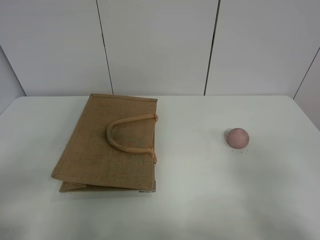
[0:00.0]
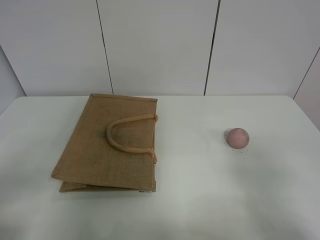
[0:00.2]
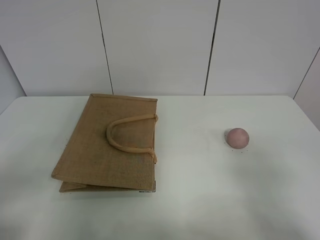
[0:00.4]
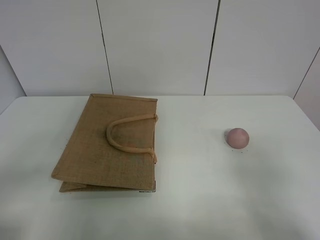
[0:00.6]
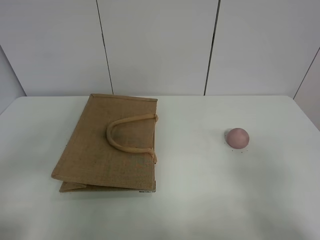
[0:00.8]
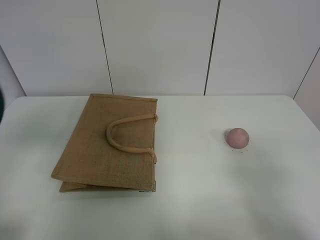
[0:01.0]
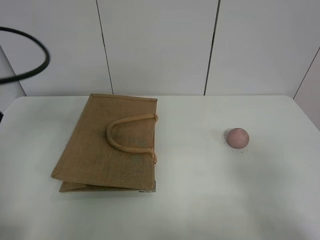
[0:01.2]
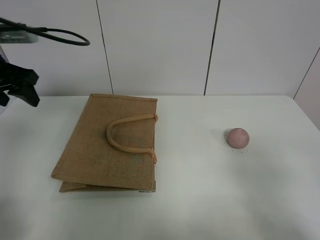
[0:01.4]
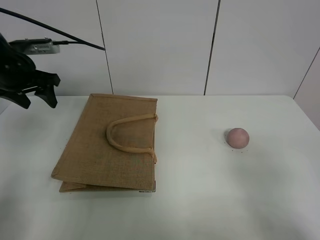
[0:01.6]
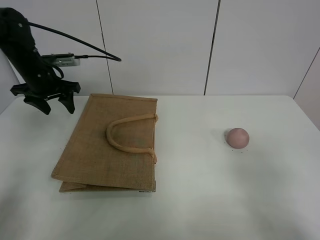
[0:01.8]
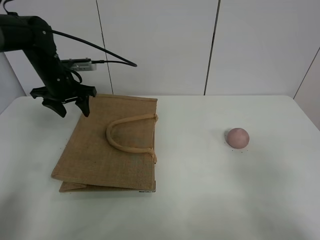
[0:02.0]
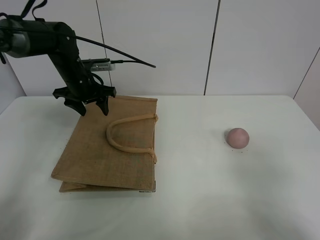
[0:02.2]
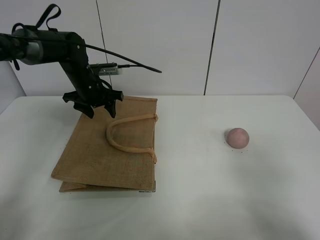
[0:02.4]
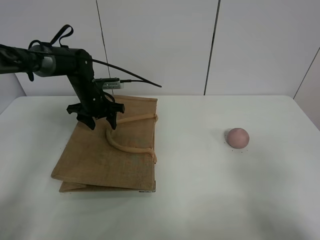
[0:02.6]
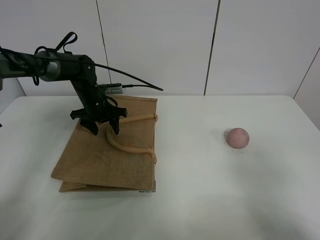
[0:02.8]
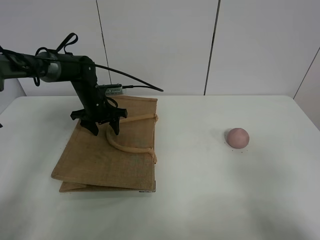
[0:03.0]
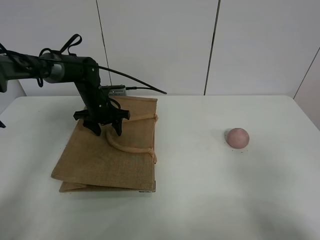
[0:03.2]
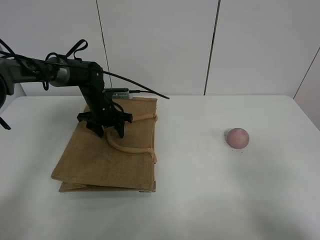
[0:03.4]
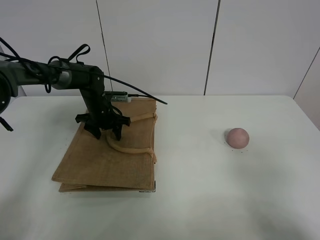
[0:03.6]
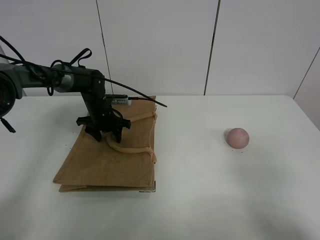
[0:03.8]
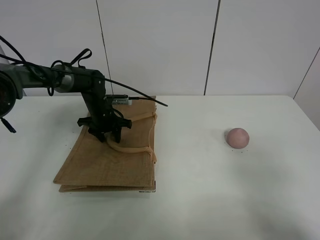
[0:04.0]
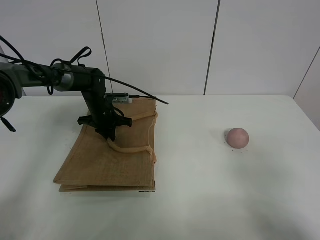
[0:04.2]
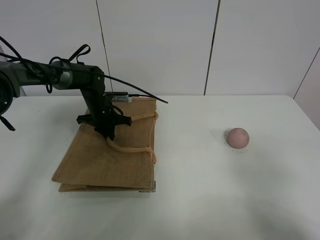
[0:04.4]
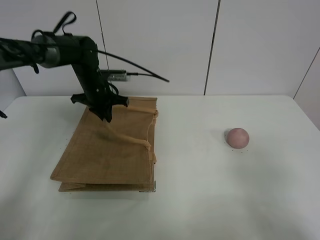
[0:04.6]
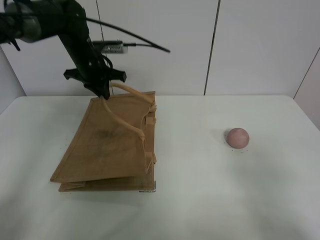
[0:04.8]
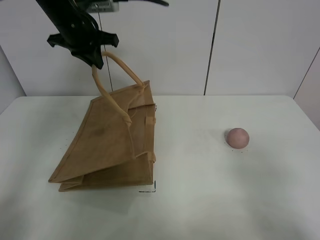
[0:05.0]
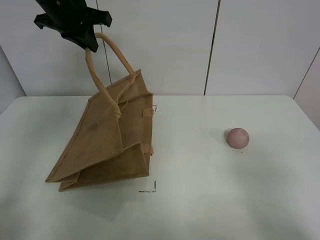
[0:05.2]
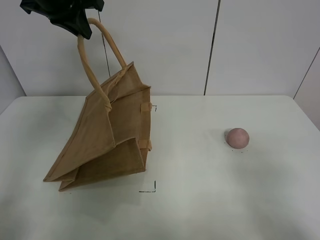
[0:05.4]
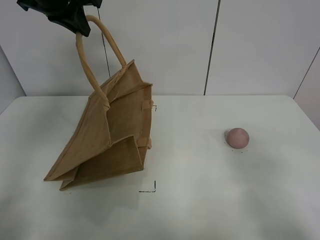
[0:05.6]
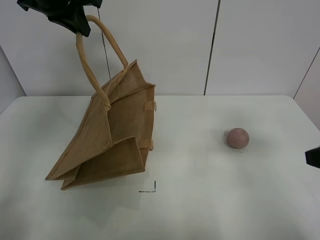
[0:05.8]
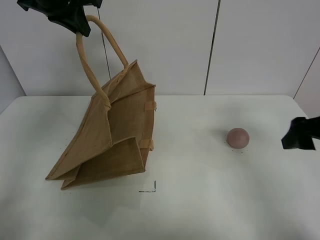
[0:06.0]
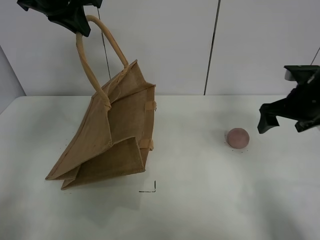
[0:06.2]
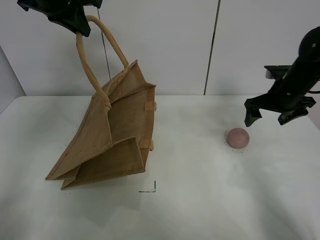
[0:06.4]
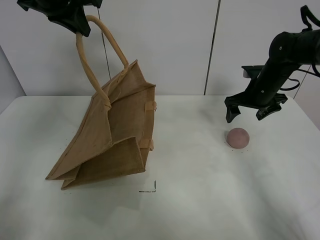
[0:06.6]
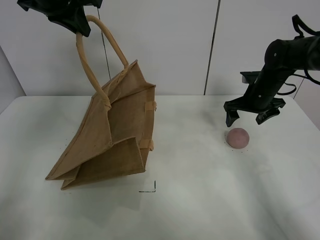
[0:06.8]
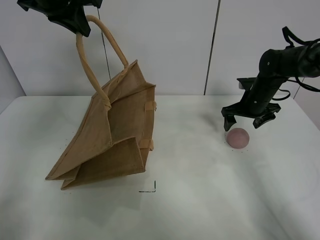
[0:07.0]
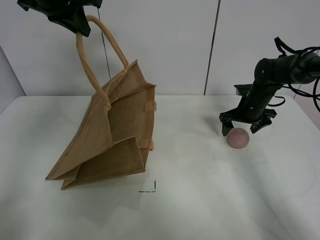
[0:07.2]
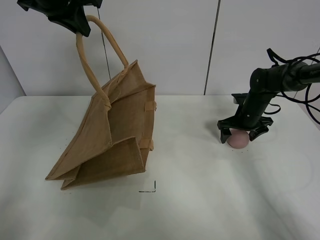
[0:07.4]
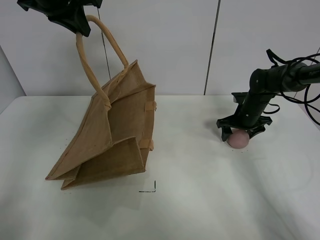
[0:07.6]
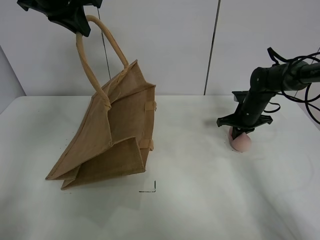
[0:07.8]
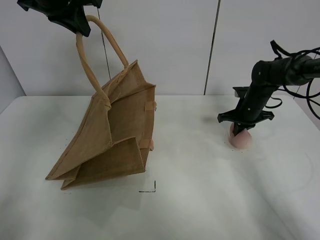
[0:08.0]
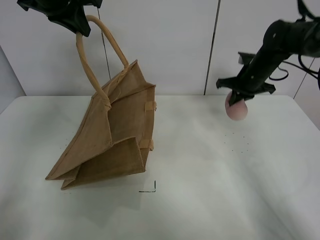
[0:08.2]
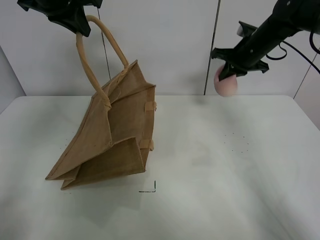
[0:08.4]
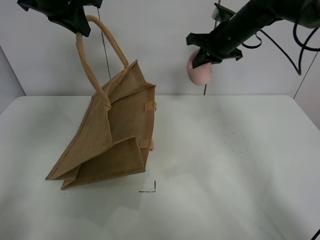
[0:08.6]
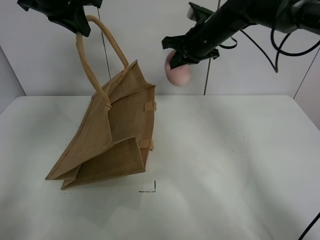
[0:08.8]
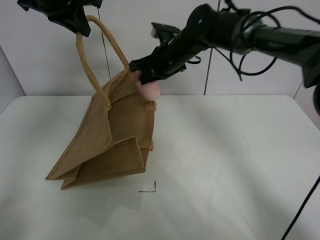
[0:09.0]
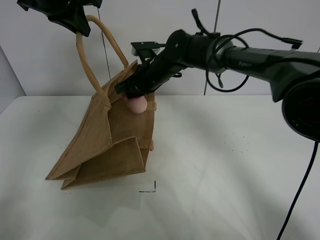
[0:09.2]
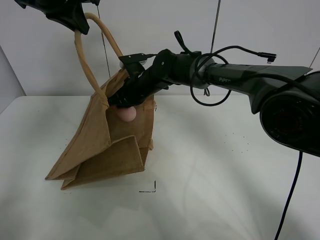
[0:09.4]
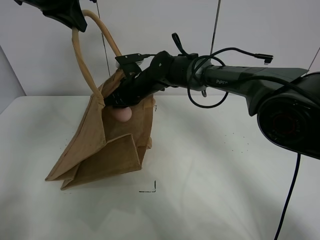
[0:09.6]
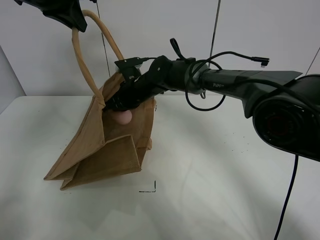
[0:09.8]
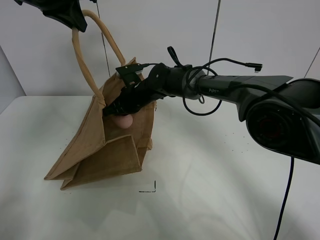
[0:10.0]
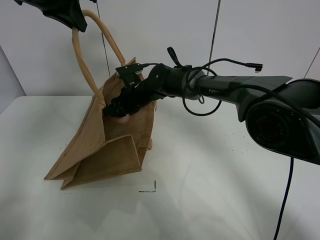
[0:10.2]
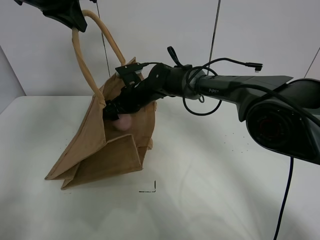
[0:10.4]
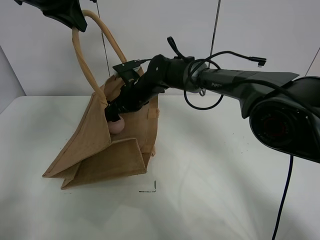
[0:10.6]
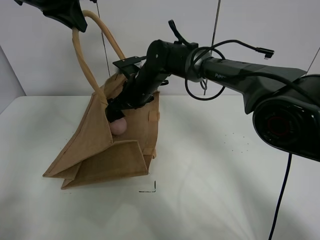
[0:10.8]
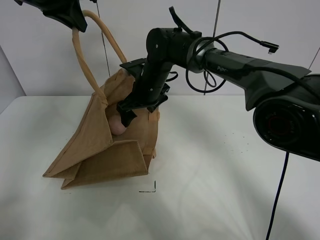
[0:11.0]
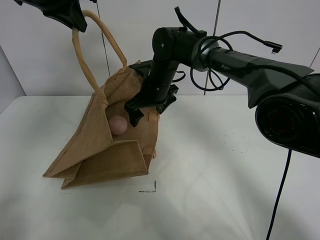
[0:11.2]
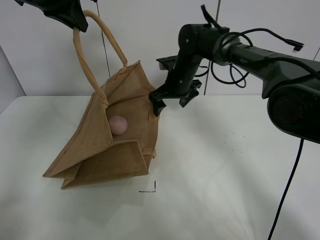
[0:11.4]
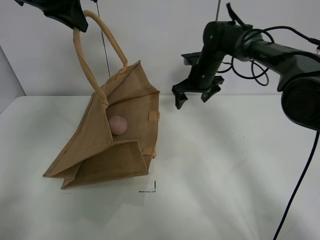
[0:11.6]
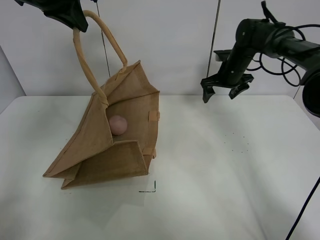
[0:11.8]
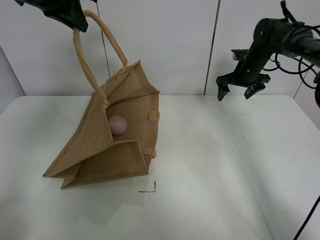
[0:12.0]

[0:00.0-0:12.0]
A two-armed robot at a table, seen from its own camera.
Task of the whole recording: open the brown linen bag and put the peach in the bag.
Step, 0.0 to 5.4 s: Lift the handbag with left gripper.
Step, 5.6 to 7.6 s: Grasp the peach with right gripper.
Step, 7.8 to 11.4 s: Place the peach in the handbag with right gripper.
0.0 to 1.6 s: The left gripper goes some 40 cm forward.
1.6 to 3.0 s: The left gripper heads downward, to the right and forward, covering roughly 20 cm.
3.0 to 4.4 s: The left gripper closes up.
4.4 to 6.0 s: The right gripper moves forward, roughly 20 cm; the left gripper goes about 30 cm upward.
6.0 to 7.6 s: The right gripper is displaced forward and downward by approximately 30 cm.
7.6 to 9.0 s: The right gripper travels to the left and upward by roughly 25 cm, and closes up.
9.0 to 10.4 s: The right gripper heads downward and to the left, covering about 15 cm, and opens up.
10.4 to 12.0 s: The right gripper is displaced to the right by about 30 cm.

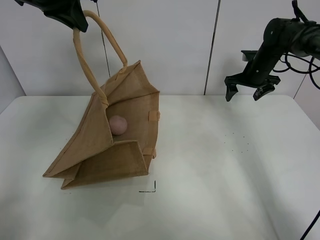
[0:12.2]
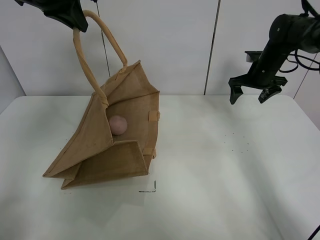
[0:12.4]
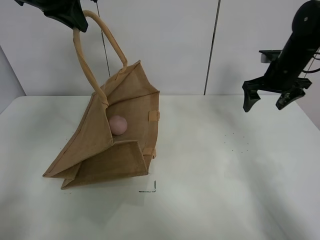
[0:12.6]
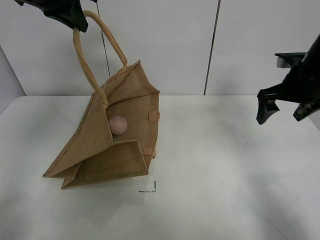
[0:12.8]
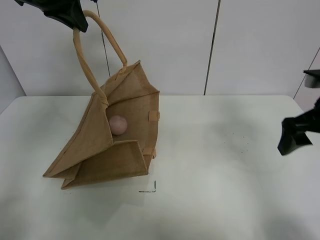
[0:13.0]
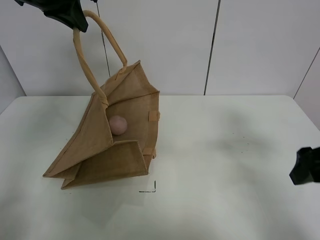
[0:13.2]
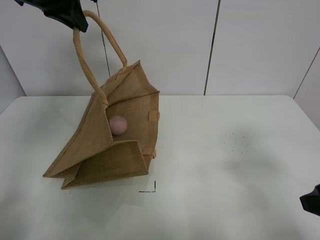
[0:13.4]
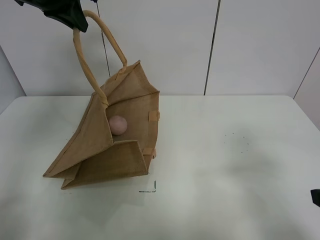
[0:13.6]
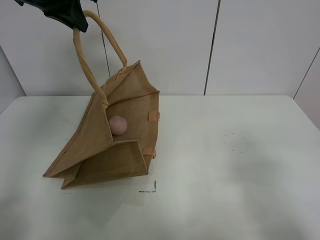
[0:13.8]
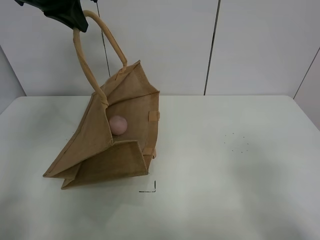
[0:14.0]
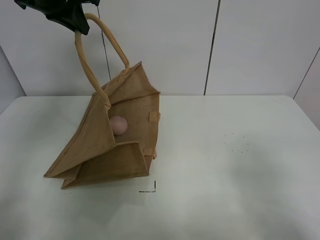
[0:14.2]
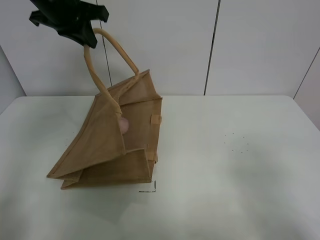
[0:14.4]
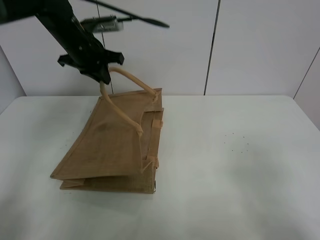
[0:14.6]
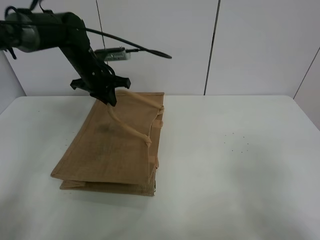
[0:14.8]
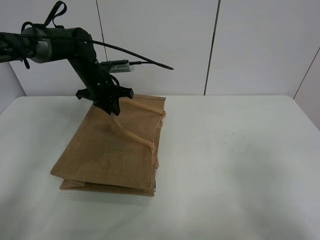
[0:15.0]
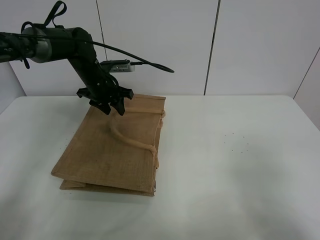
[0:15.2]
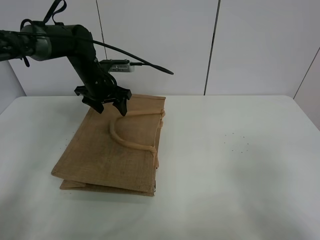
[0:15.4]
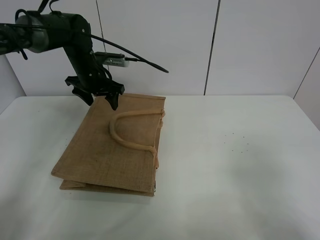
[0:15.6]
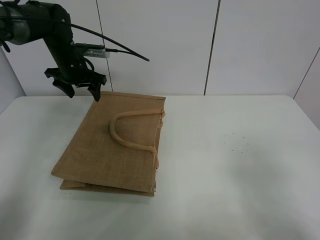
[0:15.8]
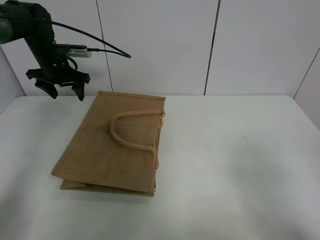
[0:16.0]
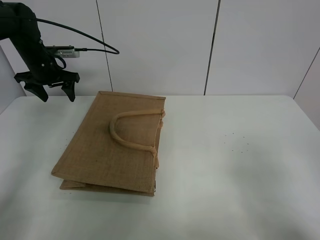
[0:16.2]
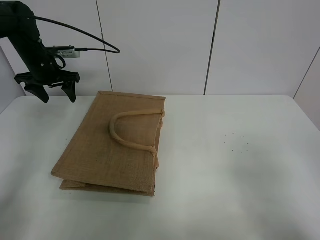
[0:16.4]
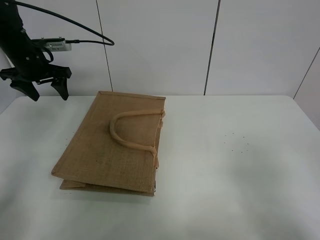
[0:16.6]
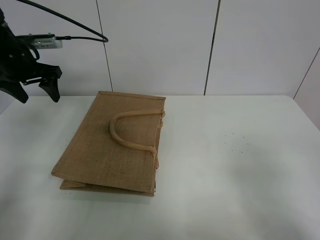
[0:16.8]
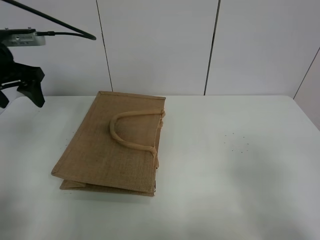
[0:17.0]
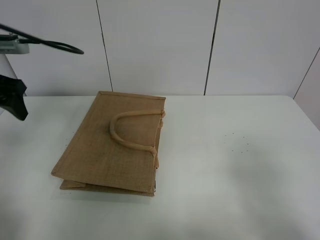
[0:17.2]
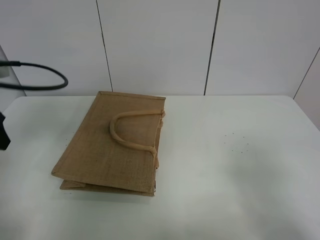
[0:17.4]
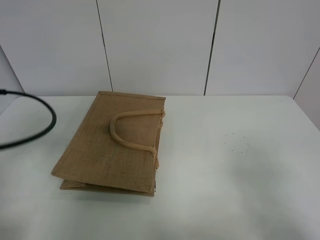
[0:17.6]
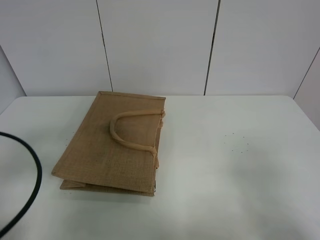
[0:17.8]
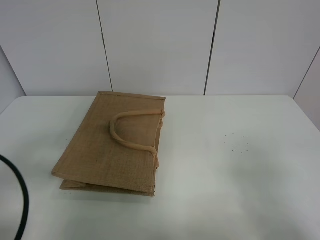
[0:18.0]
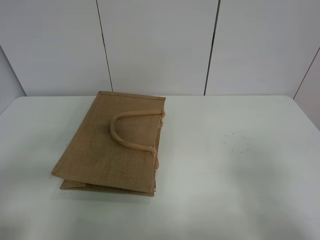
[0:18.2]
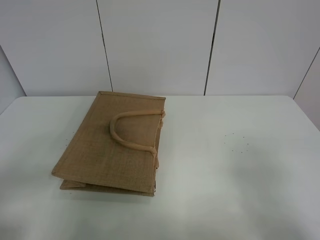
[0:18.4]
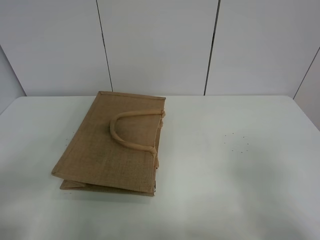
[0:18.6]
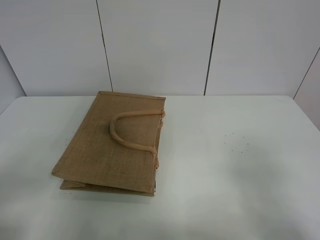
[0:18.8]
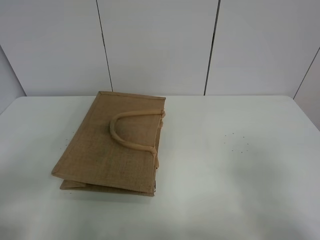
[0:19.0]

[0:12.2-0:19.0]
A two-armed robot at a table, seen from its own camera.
Task of the whole recording: open the brown linen bag and put the peach in the bag.
Step, 12.2 to 15.8 s: Put down the handbag with left grippe.
12.2 to 13.6 s: The right gripper is displaced backward by approximately 40 cm.
13.6 to 15.0 s: The right gripper goes approximately 5 cm backward; the left gripper shifts some 25 cm downward.
15.0 to 16.2 s: The left gripper shifts about 15 cm to the left, and opens.
16.2 to 17.6 s: The left gripper travels backward by some 30 cm.
17.6 to 19.0 s: The left gripper moves backward, roughly 15 cm.

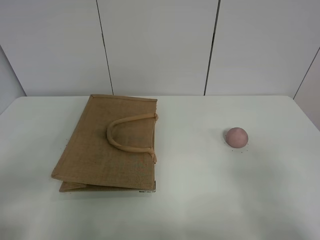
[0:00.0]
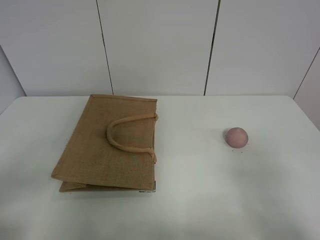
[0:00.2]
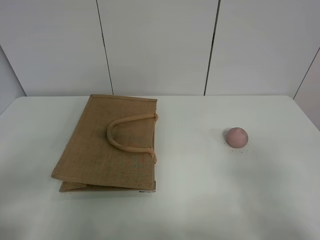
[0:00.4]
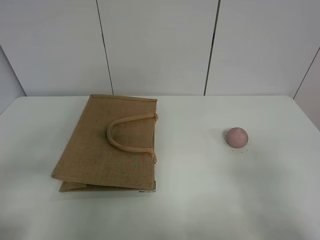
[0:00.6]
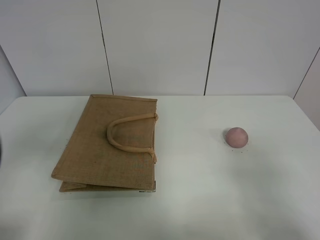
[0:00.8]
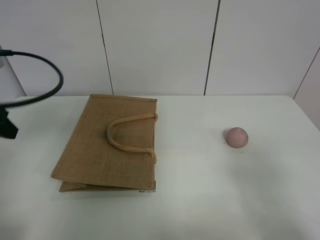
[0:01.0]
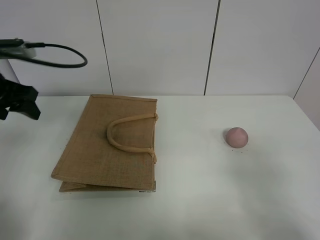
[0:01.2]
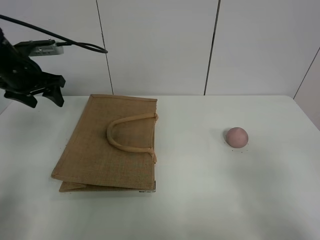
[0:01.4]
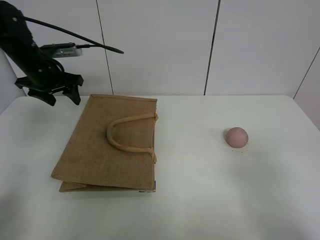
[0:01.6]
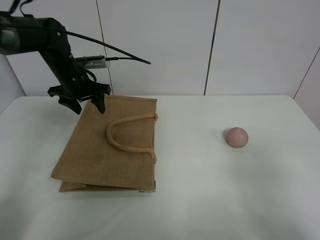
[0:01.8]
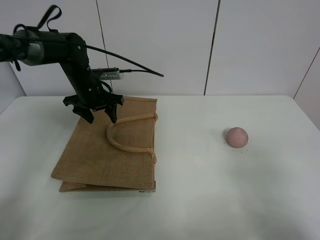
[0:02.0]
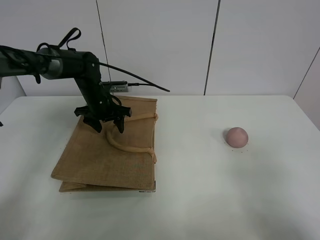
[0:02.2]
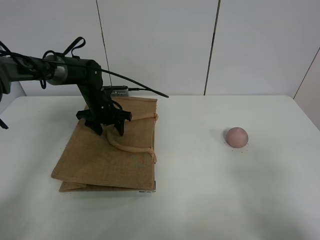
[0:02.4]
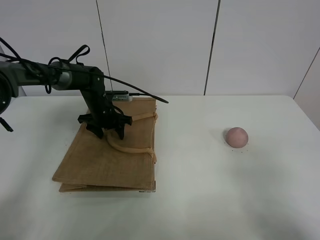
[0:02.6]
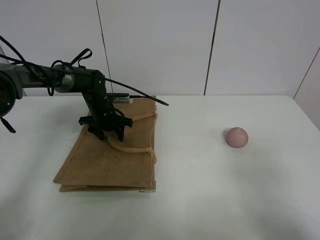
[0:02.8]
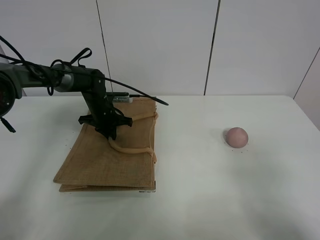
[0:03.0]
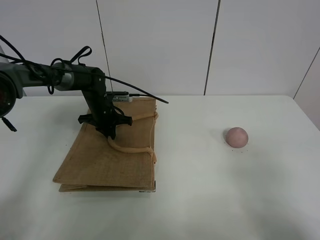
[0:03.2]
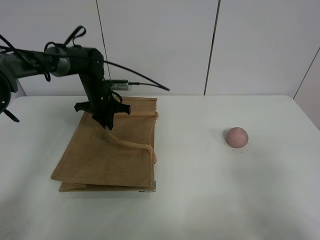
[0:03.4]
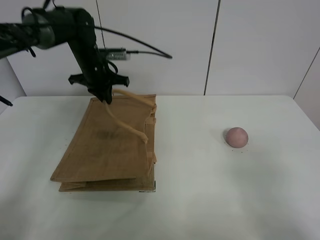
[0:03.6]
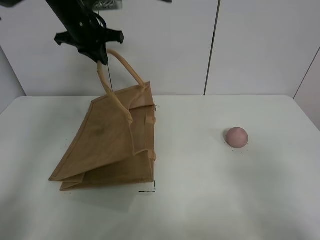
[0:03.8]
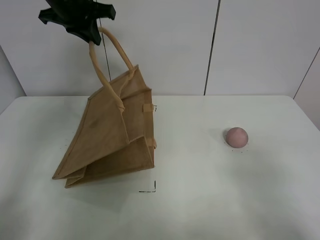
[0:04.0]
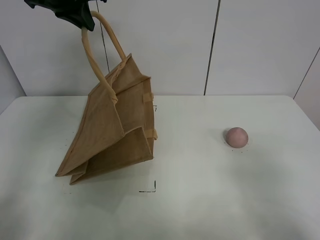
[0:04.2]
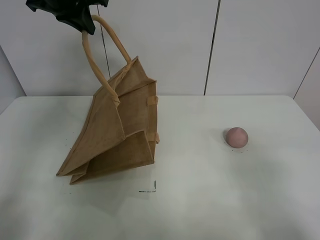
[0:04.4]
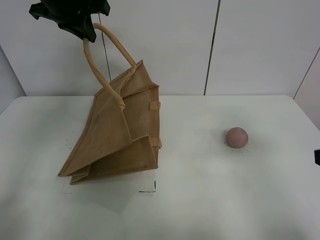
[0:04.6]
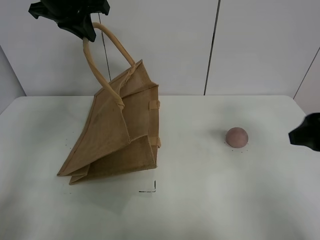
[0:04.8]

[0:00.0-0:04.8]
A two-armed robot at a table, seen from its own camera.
Task of the whole recording: open the brown linen bag and put the peach in the bag.
Step, 0.0 to 4.4 s: Lift the handbag with left gripper.
0.0 to 1.6 s: The left gripper heads forward, covering roughly 40 cm.
1.6 to 3.2 s: The left gripper is displaced downward and to the right by some 20 cm, and closes up.
3.2 to 4.8 s: The left gripper moves upward, approximately 30 cm; the right gripper travels forward by about 20 cm.
